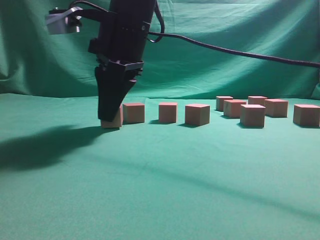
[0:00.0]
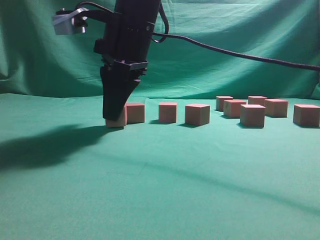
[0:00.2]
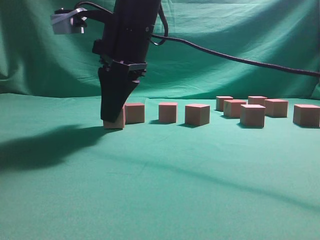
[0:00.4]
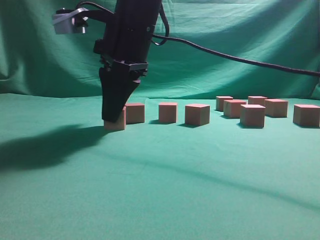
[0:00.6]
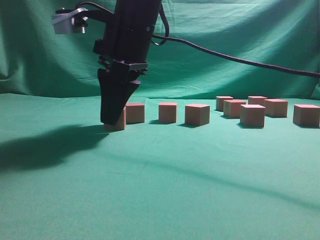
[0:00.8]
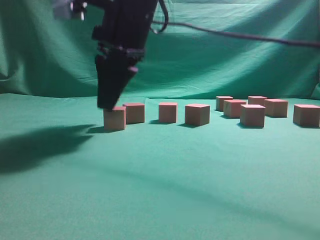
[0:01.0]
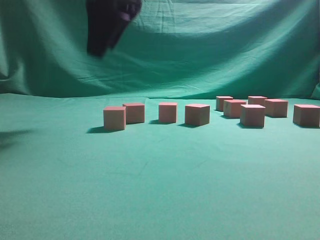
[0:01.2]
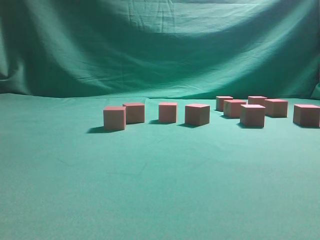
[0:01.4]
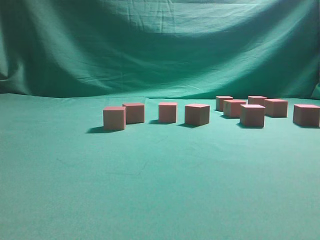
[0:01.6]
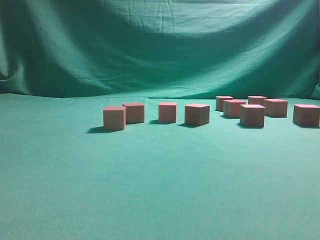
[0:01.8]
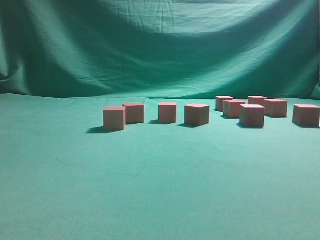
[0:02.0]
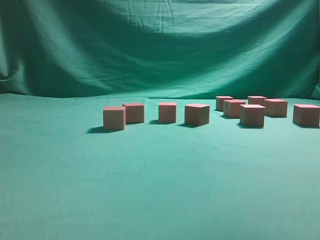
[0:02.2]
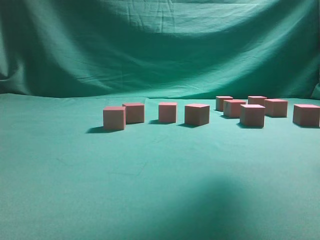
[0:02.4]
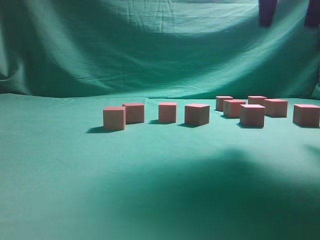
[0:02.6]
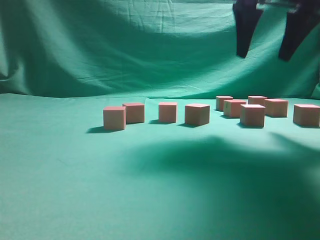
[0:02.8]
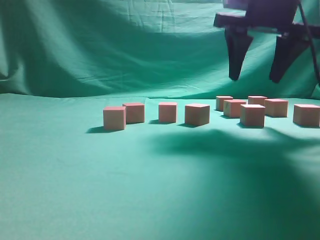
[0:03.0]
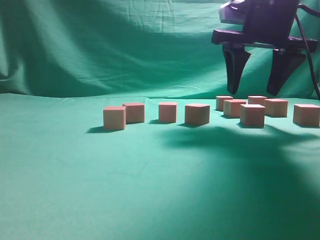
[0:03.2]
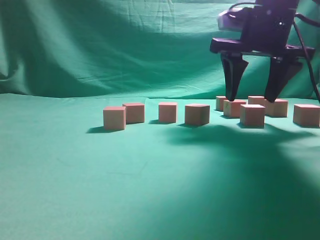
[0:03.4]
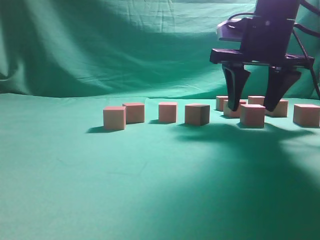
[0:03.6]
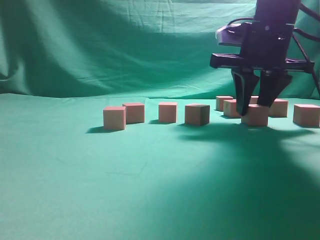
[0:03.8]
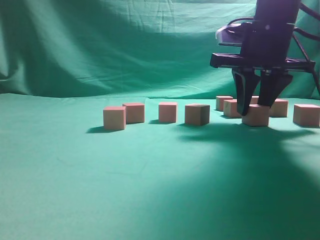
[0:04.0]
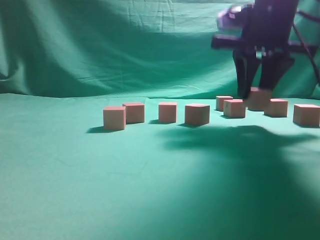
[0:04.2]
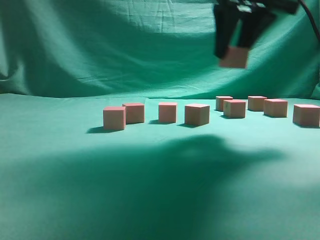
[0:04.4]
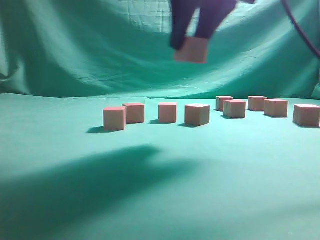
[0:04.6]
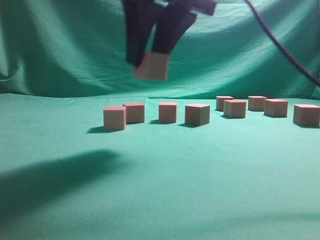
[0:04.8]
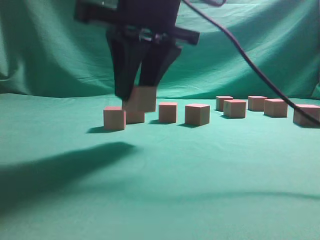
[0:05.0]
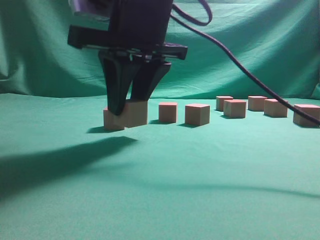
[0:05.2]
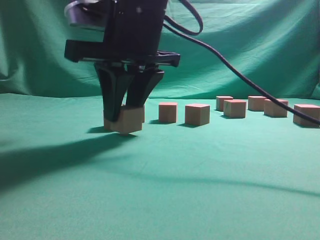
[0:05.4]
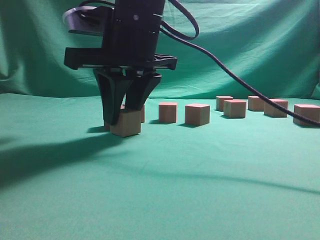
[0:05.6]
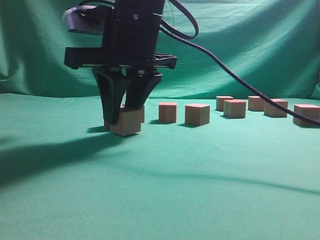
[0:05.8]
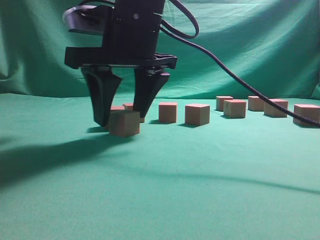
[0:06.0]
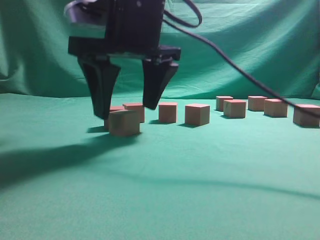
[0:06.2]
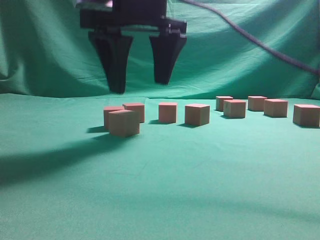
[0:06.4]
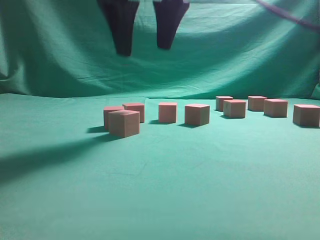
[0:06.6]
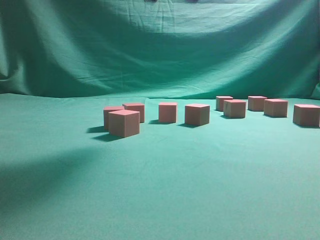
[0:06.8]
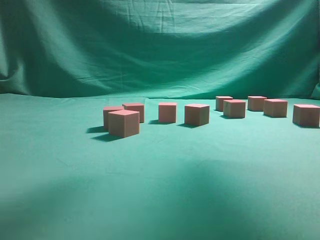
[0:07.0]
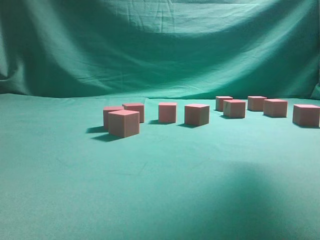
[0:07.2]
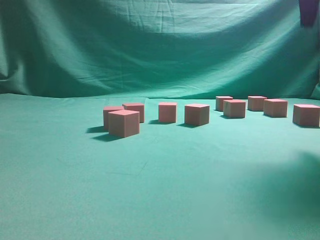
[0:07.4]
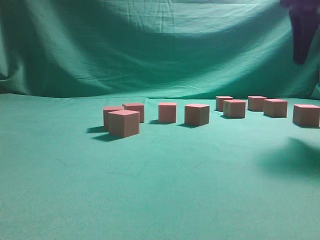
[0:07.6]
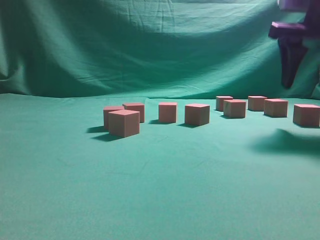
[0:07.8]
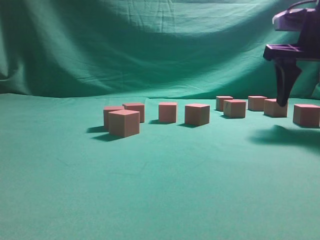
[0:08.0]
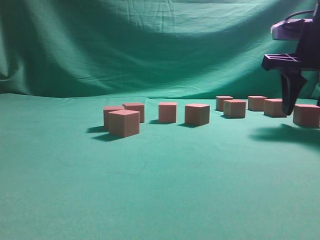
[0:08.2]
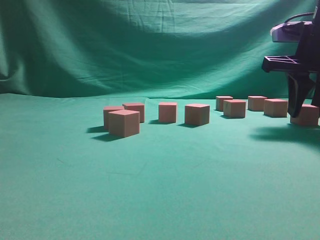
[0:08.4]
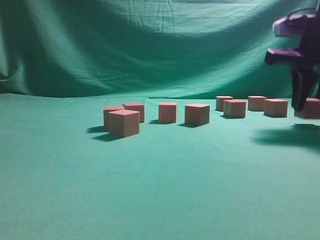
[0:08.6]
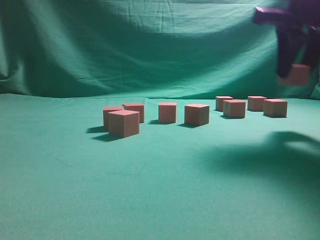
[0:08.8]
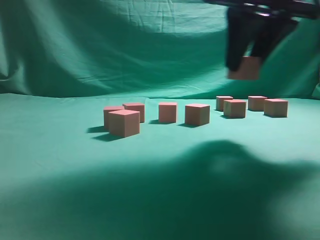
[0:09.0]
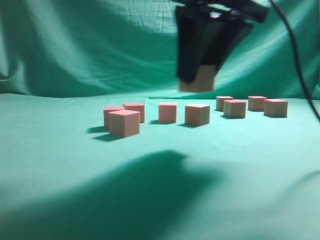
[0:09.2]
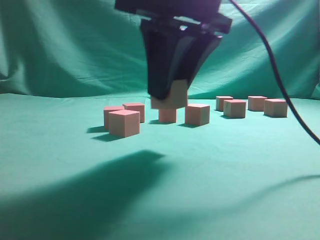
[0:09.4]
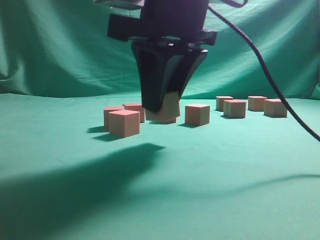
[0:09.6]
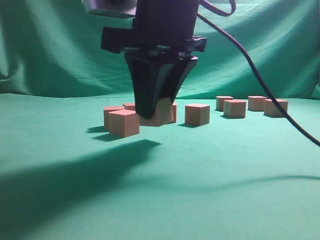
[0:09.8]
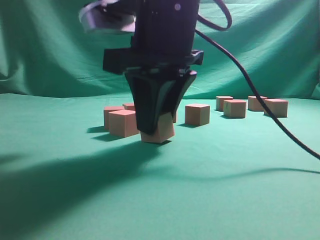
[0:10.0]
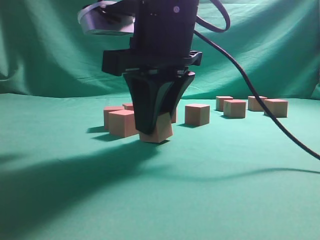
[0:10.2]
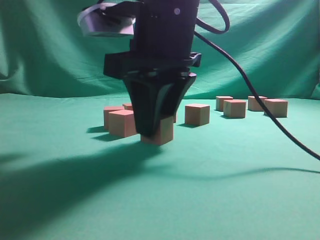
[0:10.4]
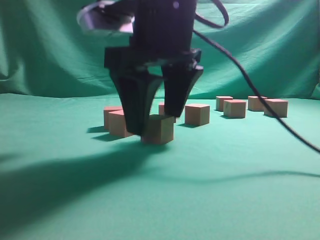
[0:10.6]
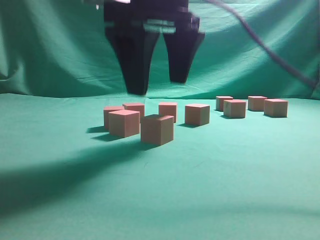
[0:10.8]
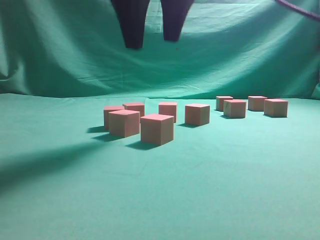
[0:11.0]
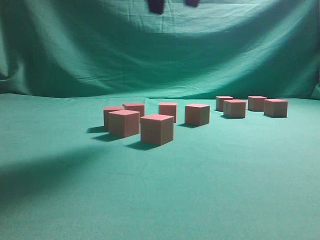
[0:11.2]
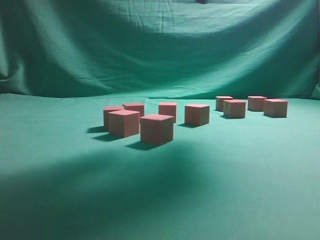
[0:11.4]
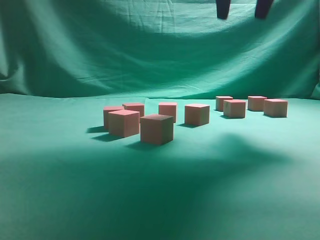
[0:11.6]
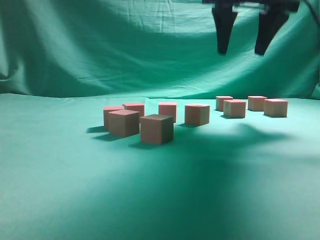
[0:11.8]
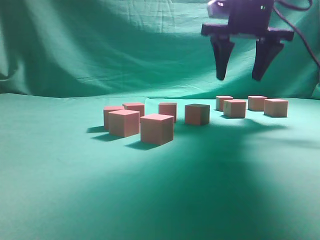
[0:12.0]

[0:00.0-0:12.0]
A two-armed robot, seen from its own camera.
Task of the whole recording: pick up the multiple cubes in two columns one by one and place them in another position on the table.
Step, 0:01.2 to 0:04.2: Pick up the block on the table.
Step, 0:04.4 to 0:06.4: Place the block at the correct position to assemble the letter S.
Step, 0:06.8 to 0:08.6: Pick up the block on the table.
Step, 0:09.0 to 0:10.8: Place the block at the correct position to assemble the letter S.
0:00.0 to 0:01.6: The right gripper moves upward, about 25 cm, and opens its fingers.
0:01.6 to 0:03.0: The right gripper moves downward and to the right, about 25 cm.
0:03.0 to 0:04.4: The right gripper shifts some 5 cm to the left, and closes its fingers.
0:04.4 to 0:06.0: The right gripper heads to the left and downward, covering approximately 15 cm, and opens up.
0:06.0 to 0:07.6: The right gripper shifts some 25 cm to the right.
0:07.6 to 0:09.0: The right gripper travels to the left by about 10 cm, and closes its fingers.
0:09.0 to 0:10.4: The right gripper shifts roughly 15 cm to the left and downward.
0:10.4 to 0:12.0: The right gripper moves forward and to the right, some 20 cm, and goes upward and returns, some 15 cm each way.

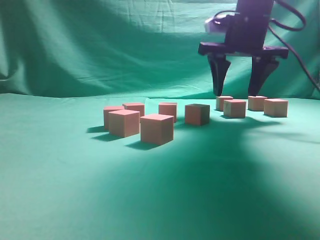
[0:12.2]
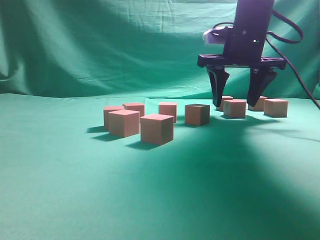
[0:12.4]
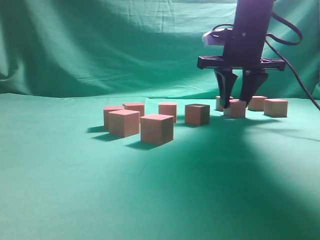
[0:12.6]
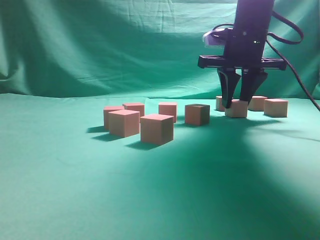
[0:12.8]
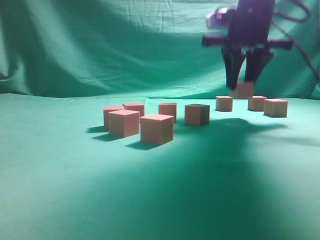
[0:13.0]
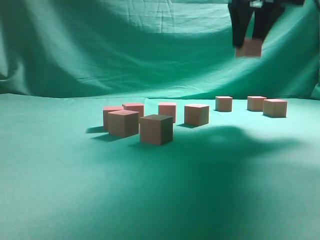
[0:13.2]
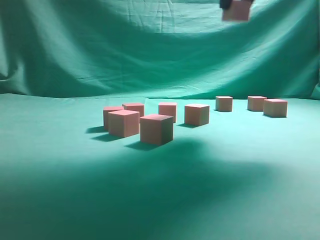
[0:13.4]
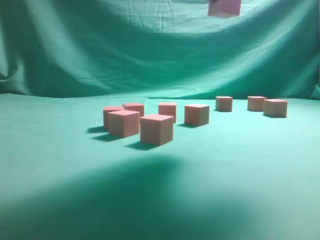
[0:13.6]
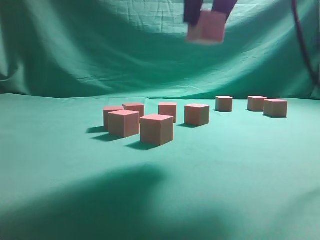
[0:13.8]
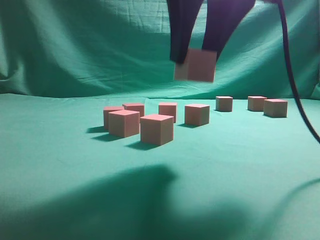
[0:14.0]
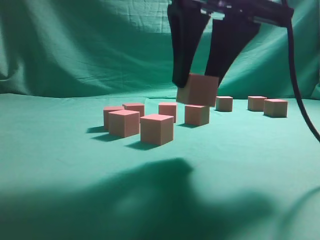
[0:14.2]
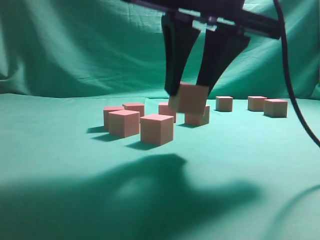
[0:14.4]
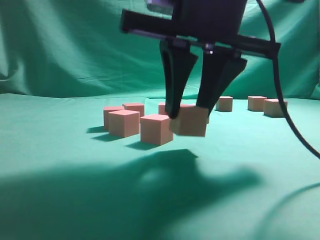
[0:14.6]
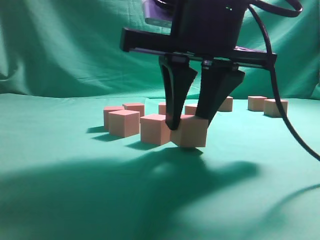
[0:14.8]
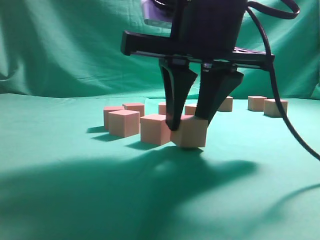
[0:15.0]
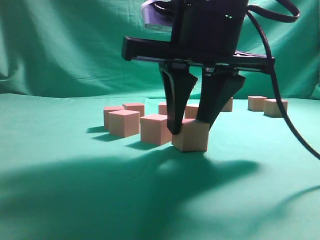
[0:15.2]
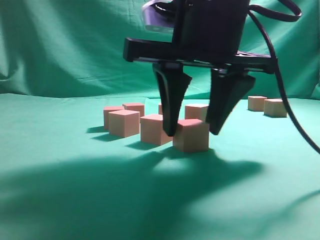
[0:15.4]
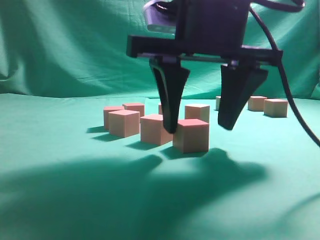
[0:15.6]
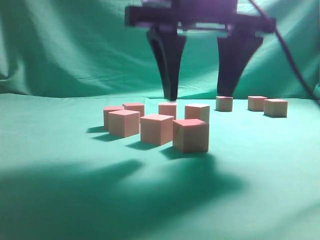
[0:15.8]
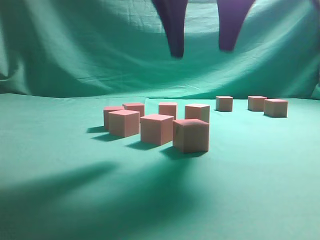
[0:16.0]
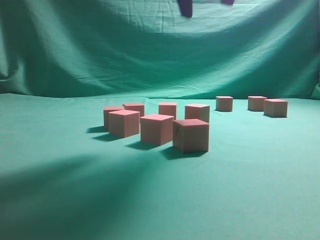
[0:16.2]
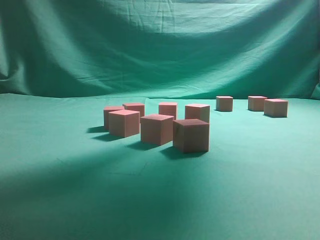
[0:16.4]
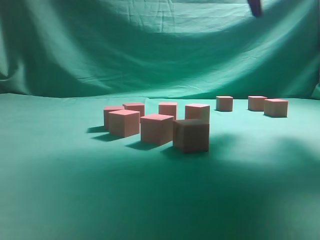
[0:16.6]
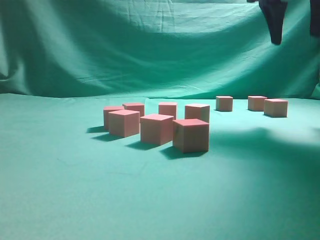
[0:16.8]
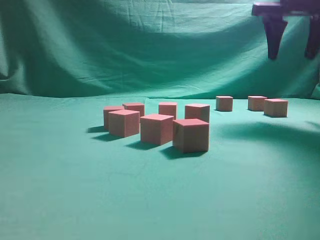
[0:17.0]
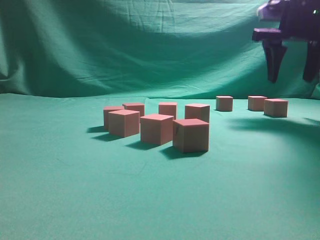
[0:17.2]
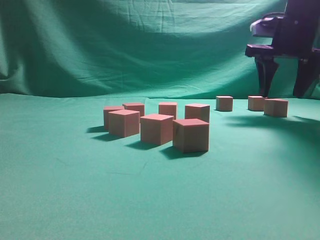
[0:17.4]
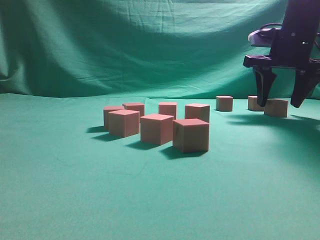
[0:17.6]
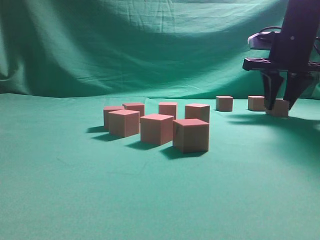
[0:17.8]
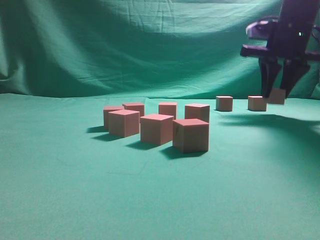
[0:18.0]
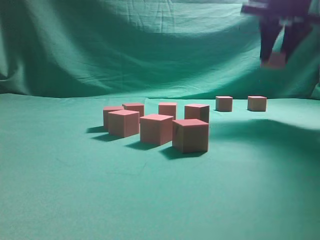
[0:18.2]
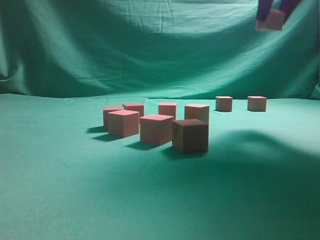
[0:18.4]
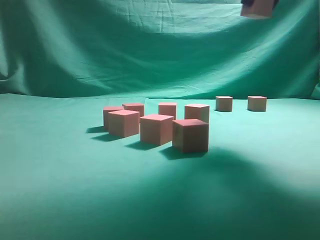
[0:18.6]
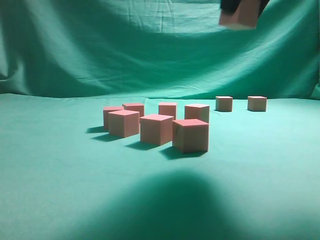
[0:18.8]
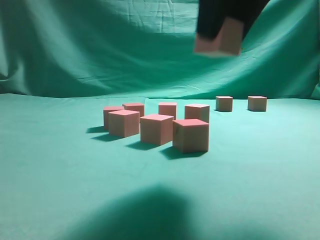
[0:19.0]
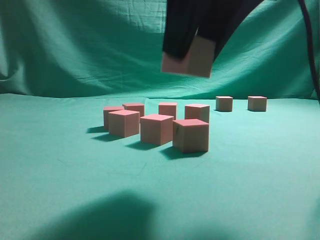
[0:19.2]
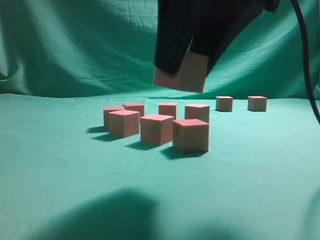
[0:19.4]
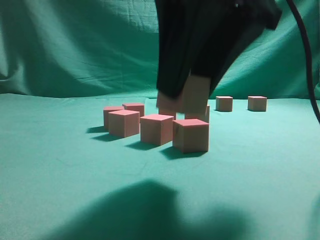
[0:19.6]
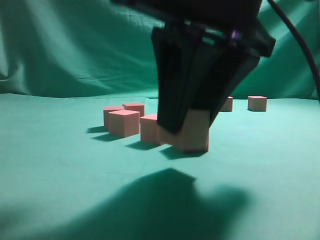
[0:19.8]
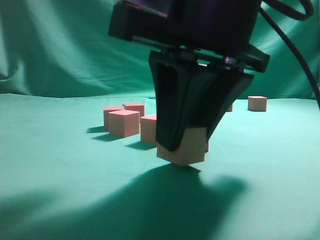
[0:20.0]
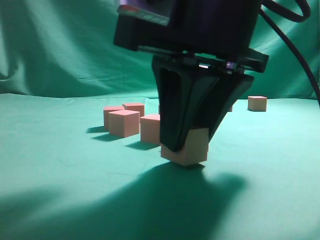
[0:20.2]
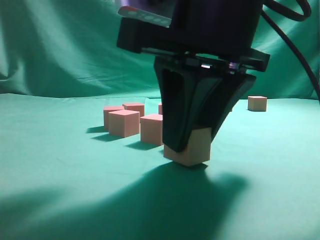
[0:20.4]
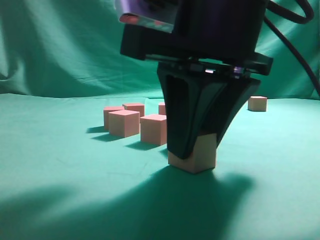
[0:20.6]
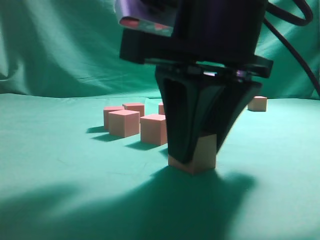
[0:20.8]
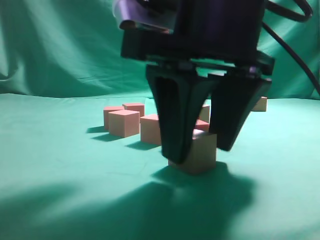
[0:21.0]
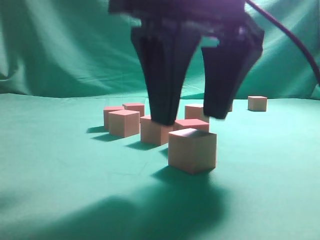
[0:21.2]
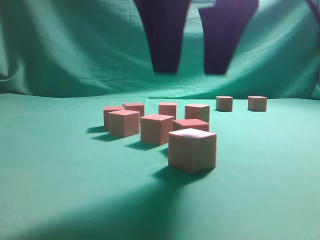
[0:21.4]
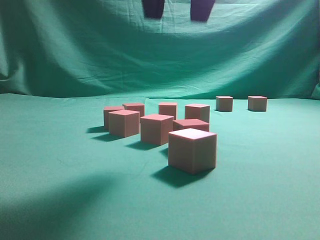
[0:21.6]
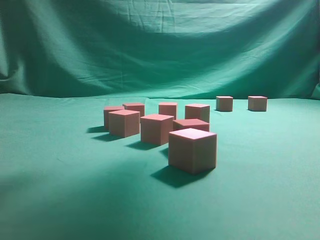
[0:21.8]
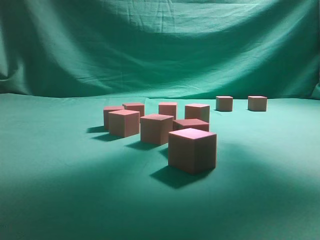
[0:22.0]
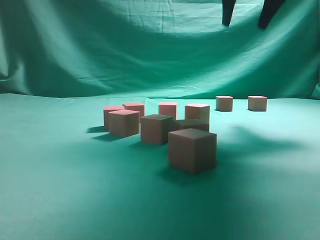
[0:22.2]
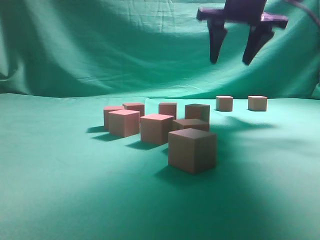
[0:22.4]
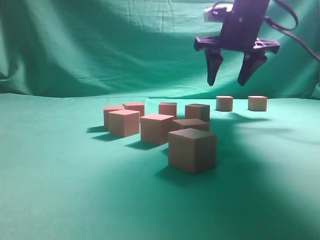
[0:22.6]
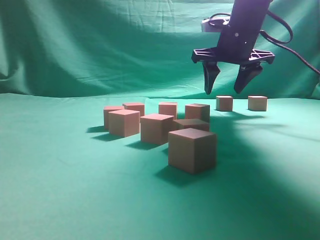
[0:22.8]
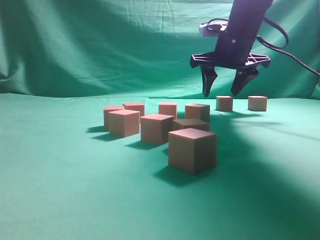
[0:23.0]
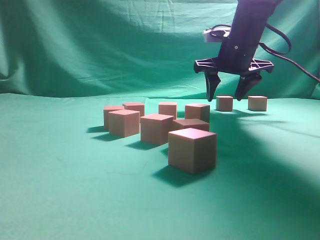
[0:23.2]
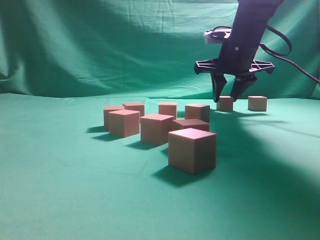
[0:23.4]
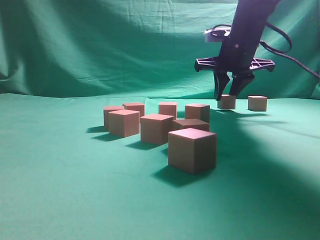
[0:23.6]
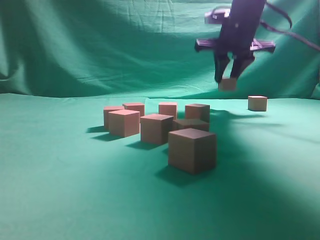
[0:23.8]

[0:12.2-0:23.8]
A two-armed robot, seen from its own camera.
Task of the whole recording: pick up the multiple cubes in two columns one by one and place them in another position on the table.
Step, 0:13.2 to 0:15.8: Place the block at the correct position to assemble the letter S.
Step, 0:16.2 to 0:18.0: Pick up the block on the table.
Step, 0:18.2 to 0:21.4: Place the block at the correct position to assemble the letter S.
Step, 0:21.6 to 0:23.8: Pick up the block on the table.
0:12.2 to 0:13.6: The right gripper is displaced backward and upward by about 20 cm, and closes.
0:13.6 to 0:15.0: The right gripper heads downward, covering about 15 cm.
0:15.0 to 0:16.6: The right gripper goes about 20 cm upward, forward and to the right, and opens.
0:16.6 to 0:18.0: The right gripper moves downward, forward and to the right, about 15 cm, and closes.
0:18.0 to 0:19.4: The right gripper heads backward and to the left, covering approximately 30 cm.
0:19.4 to 0:21.0: The right gripper travels downward by about 5 cm.
0:21.0 to 0:22.4: The right gripper heads forward and to the right, covering some 25 cm.
0:22.4 to 0:23.8: The right gripper closes up.
